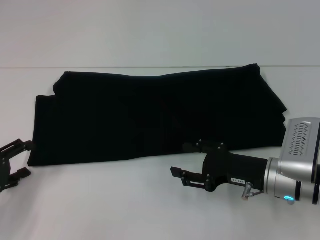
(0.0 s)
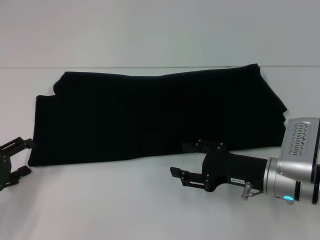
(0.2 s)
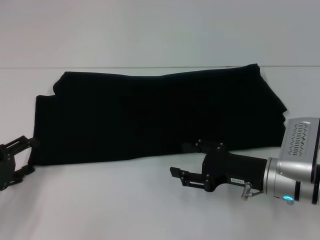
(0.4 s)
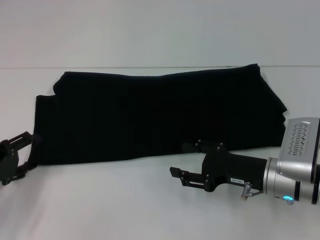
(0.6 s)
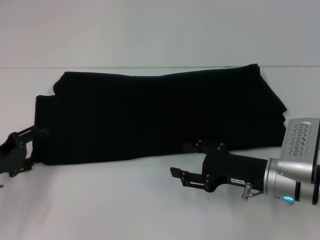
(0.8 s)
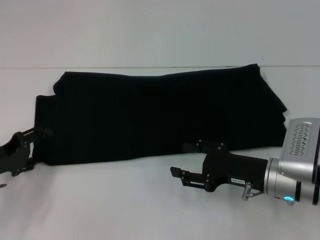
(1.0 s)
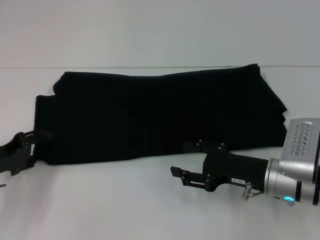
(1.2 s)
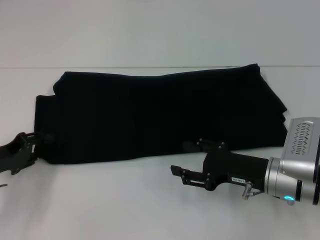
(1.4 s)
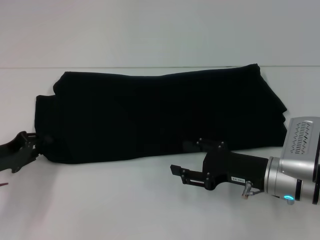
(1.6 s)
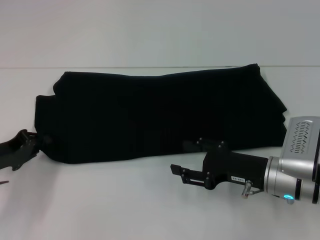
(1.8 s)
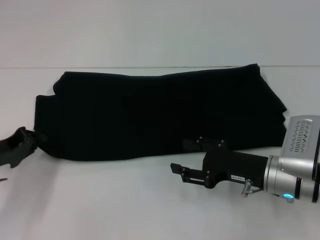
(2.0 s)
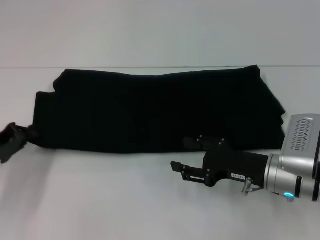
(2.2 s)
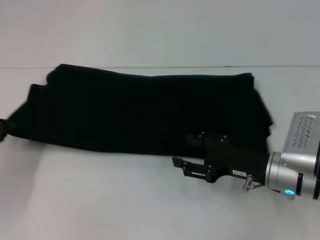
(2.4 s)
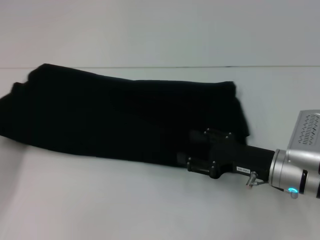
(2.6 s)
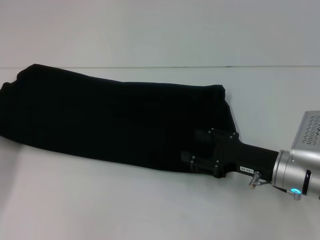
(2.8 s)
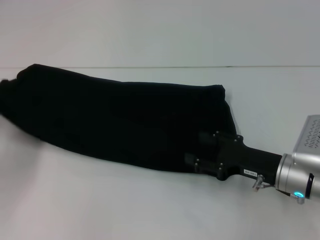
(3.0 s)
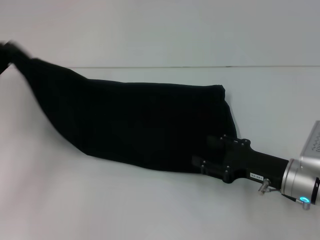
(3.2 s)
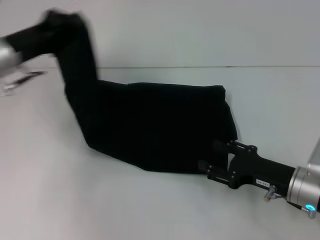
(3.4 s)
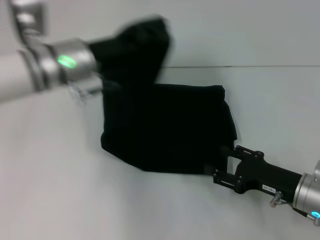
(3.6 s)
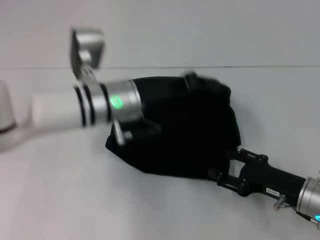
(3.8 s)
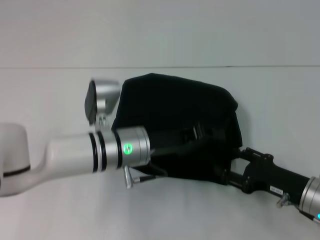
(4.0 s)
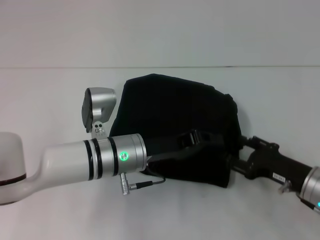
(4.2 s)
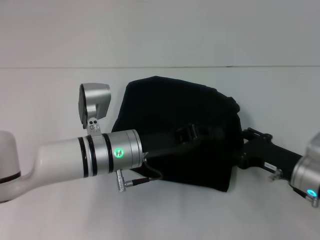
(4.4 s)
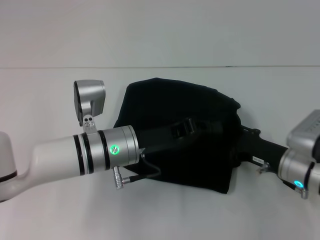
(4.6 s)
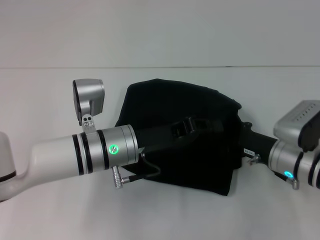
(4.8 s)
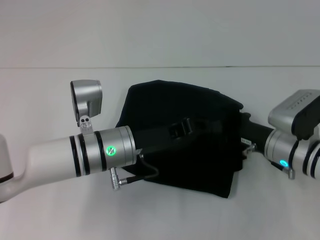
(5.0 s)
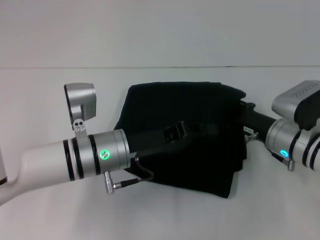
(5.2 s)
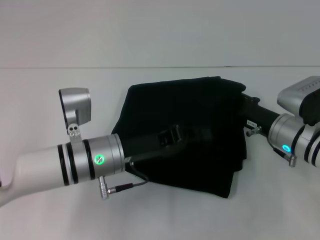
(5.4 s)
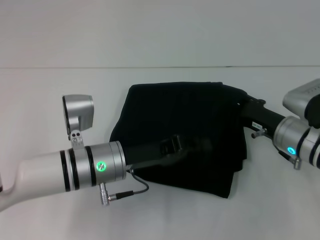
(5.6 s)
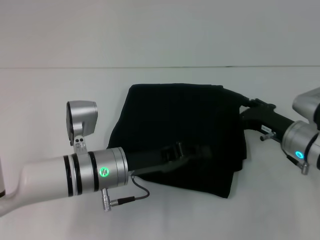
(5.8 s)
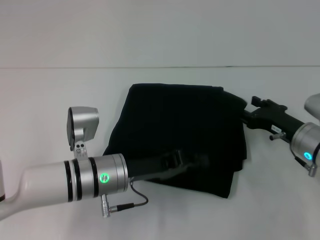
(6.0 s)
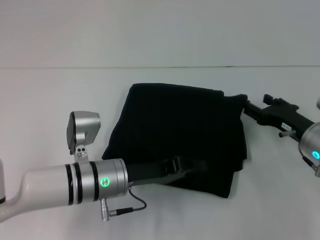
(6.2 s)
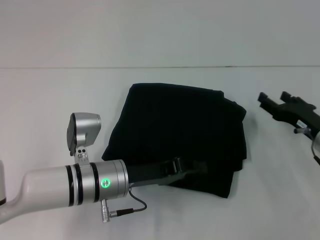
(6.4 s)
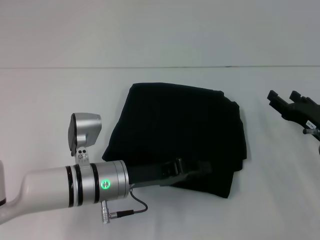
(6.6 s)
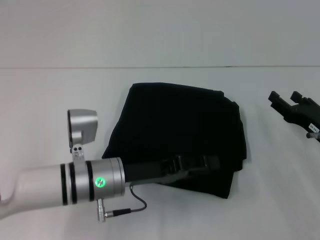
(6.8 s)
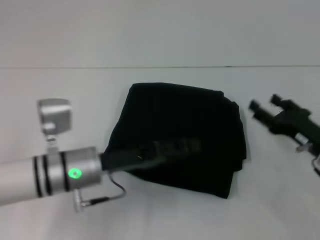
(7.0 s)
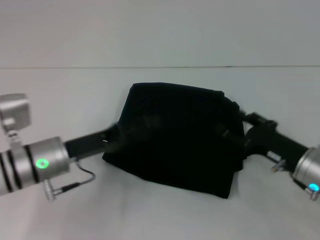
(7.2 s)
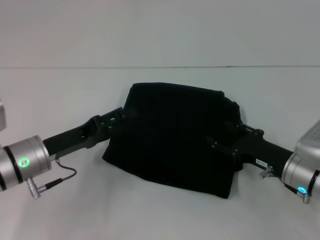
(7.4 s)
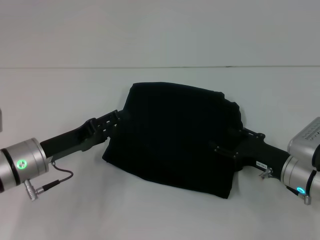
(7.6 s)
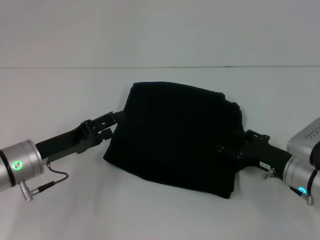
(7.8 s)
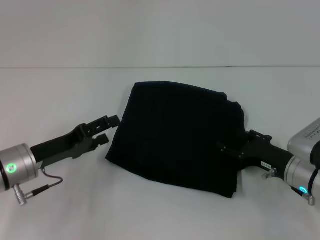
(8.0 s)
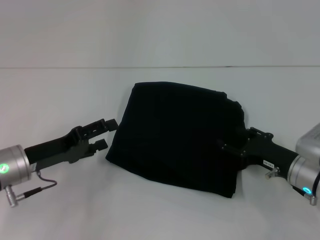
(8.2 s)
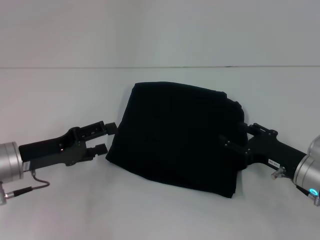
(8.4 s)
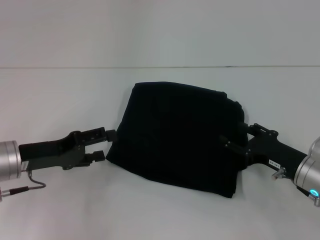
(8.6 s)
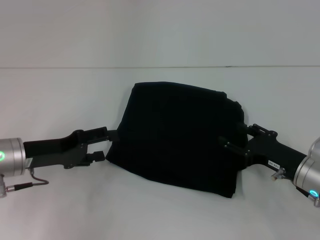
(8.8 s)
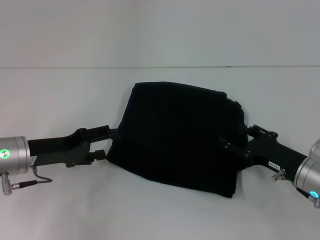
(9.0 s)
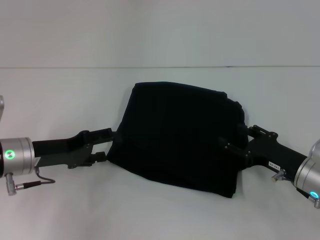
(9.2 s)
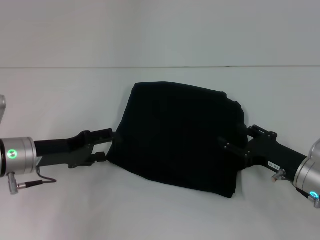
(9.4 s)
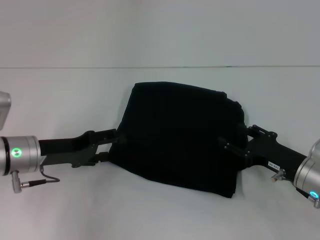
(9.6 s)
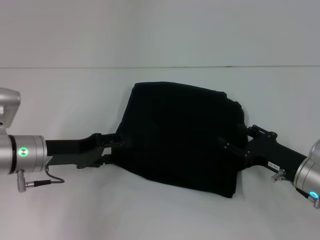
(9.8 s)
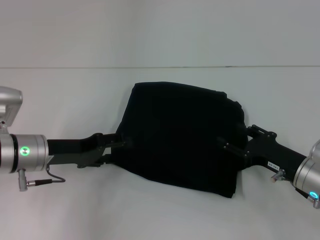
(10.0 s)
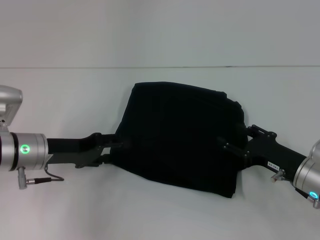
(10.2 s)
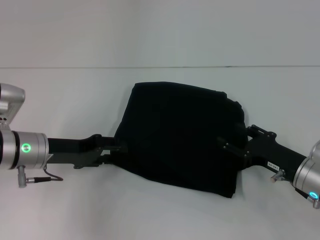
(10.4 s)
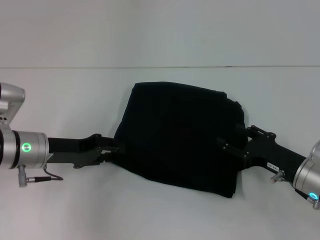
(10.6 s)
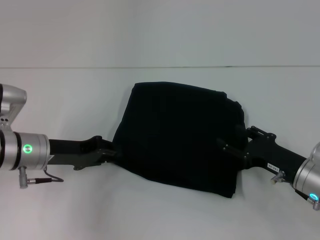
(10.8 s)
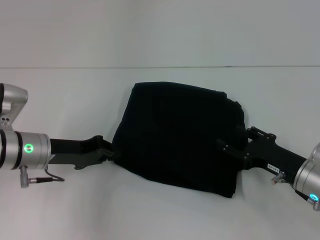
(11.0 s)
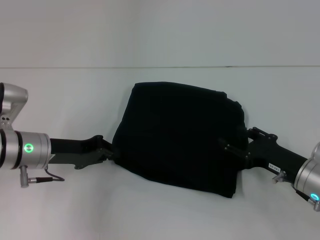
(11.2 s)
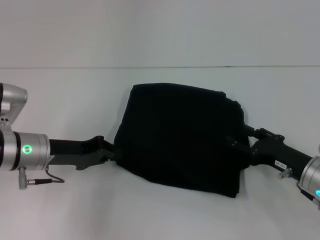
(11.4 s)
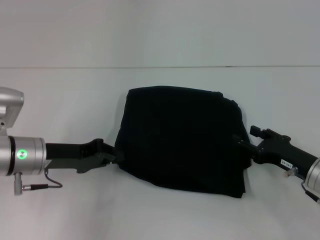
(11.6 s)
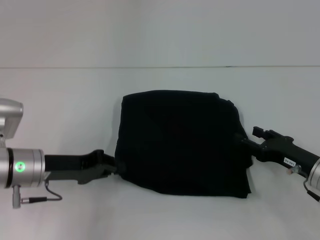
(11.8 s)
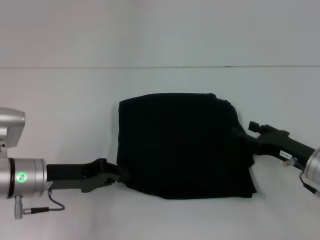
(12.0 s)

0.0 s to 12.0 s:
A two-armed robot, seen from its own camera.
Step, 0.0 to 6.8 s: Fold the clothes with your left hand.
0.0 to 1.6 s: The left gripper shifts by some 5 cm, and closes up.
1.6 to 3.0 s: The left gripper shifts some 10 cm to the left and upward, and closes up.
3.0 to 4.4 s: The left gripper heads to the right, covering approximately 30 cm.
6.0 to 7.6 s: The left gripper moves to the left, approximately 10 cm, and opens.
7.6 to 9.0 s: The grippers stay close to where they were, moving slightly.
9.0 to 10.4 s: The grippers stay close to where they were, moving slightly.
10.4 to 12.0 s: The left gripper closes its fingers.

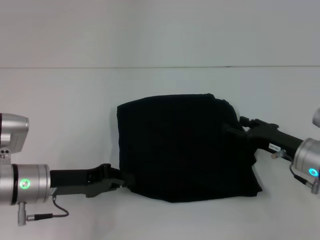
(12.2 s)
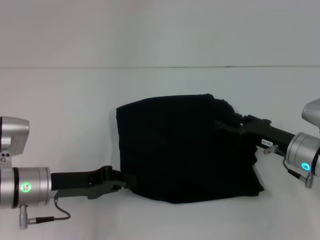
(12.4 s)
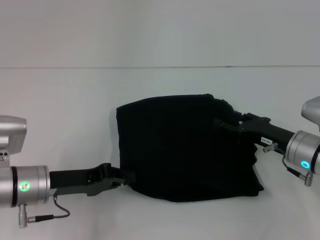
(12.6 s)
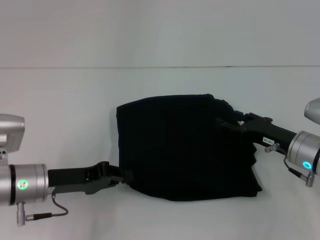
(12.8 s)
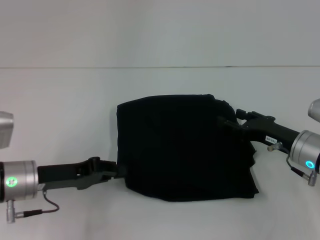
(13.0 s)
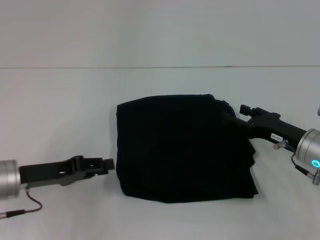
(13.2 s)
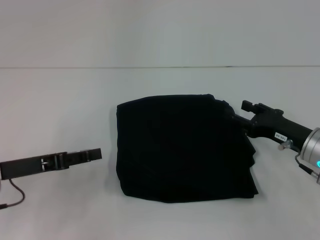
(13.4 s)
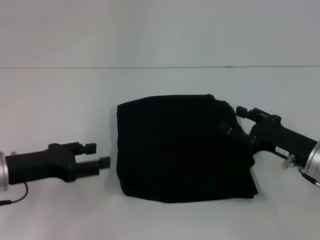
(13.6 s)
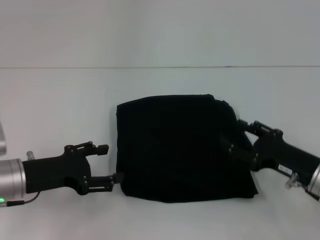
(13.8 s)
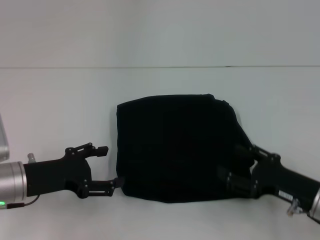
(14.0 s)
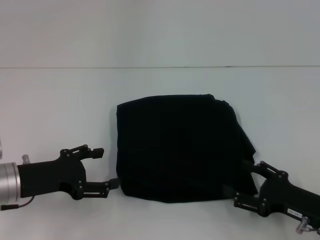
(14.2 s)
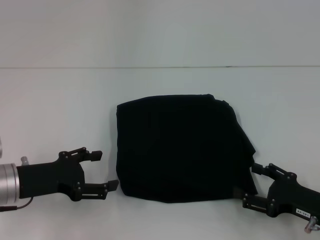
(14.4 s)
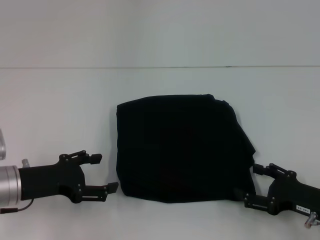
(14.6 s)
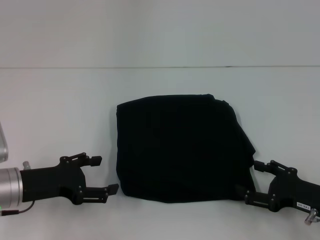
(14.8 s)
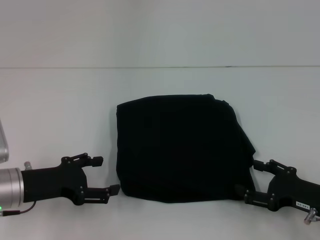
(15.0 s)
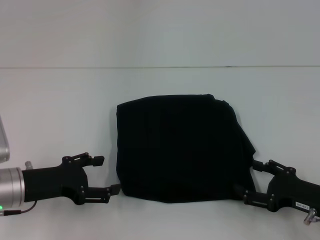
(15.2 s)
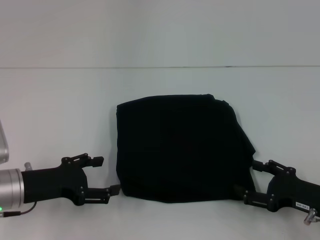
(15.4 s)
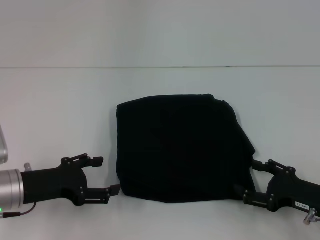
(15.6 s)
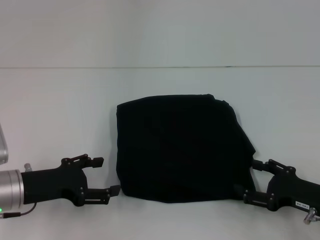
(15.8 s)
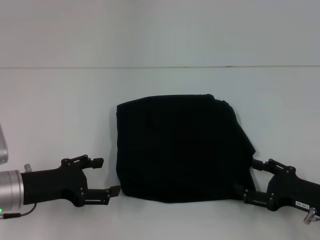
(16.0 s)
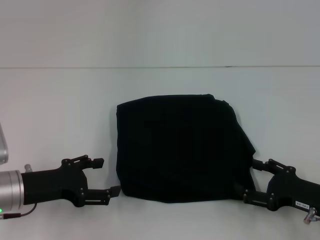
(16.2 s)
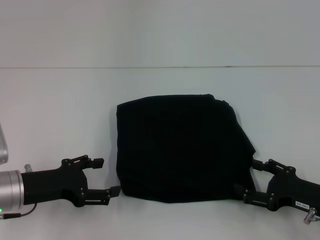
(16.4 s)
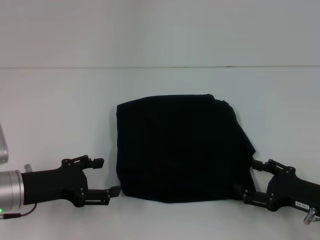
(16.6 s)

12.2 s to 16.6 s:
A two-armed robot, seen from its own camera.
12.2 to 13.6 s: The left gripper changes place by some 5 cm, and opens.
13.6 to 15.2 s: The right gripper heads backward, covering about 5 cm. Meanwhile the left gripper opens its fingers.
15.2 to 16.6 s: The two grippers keep their place.

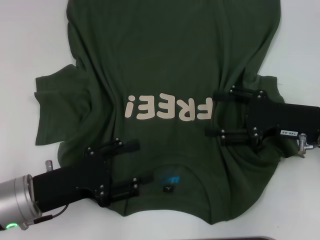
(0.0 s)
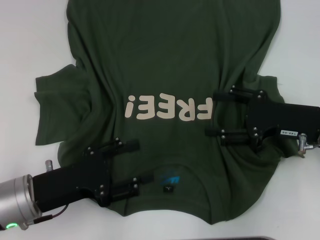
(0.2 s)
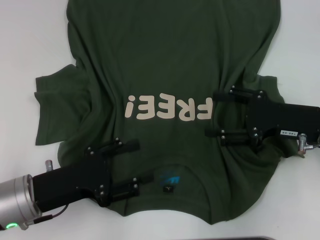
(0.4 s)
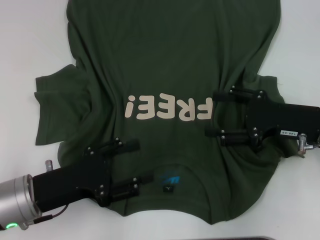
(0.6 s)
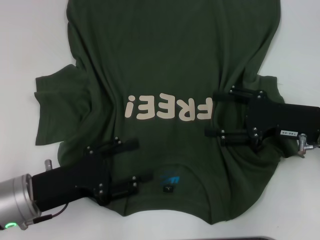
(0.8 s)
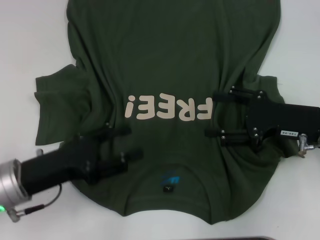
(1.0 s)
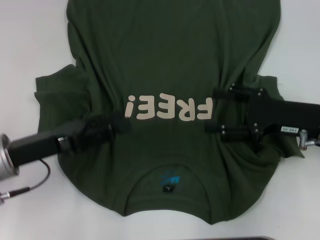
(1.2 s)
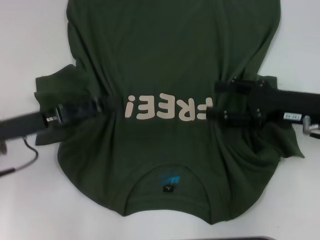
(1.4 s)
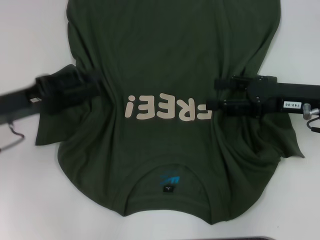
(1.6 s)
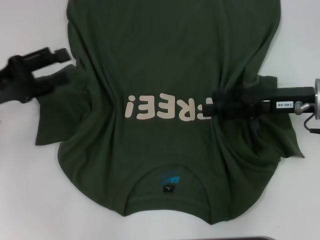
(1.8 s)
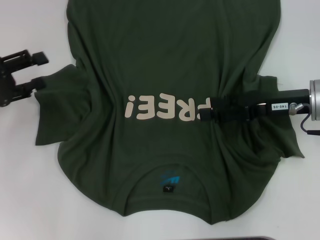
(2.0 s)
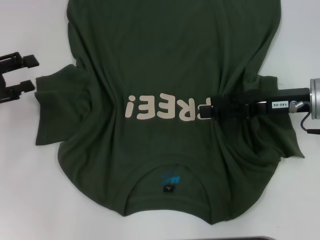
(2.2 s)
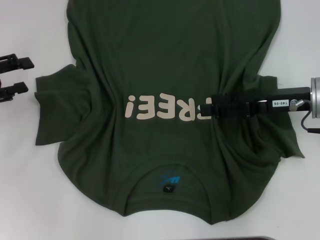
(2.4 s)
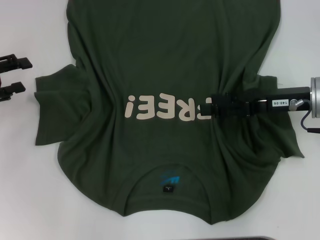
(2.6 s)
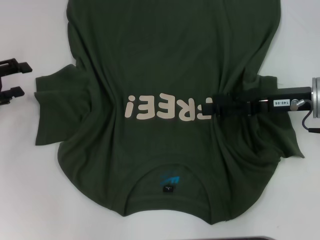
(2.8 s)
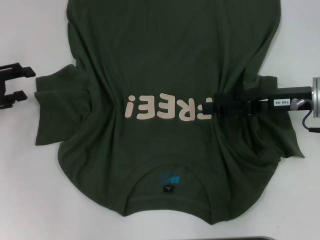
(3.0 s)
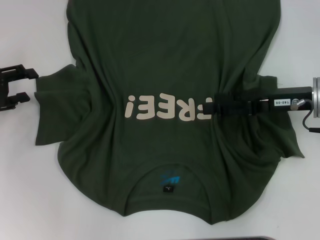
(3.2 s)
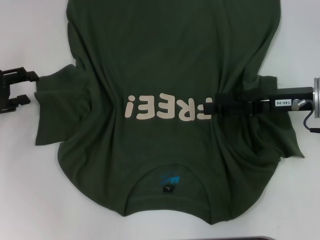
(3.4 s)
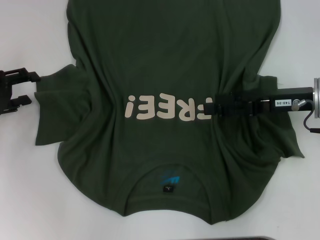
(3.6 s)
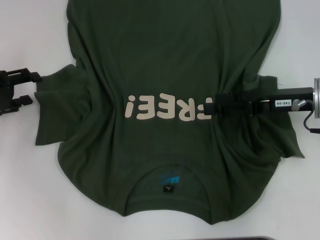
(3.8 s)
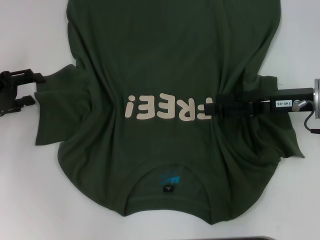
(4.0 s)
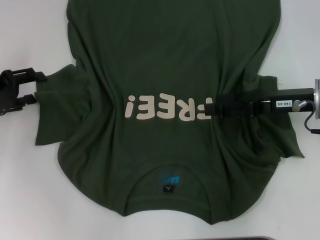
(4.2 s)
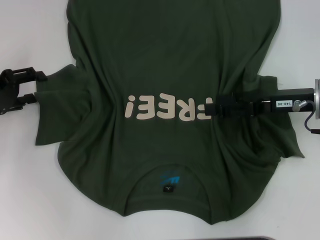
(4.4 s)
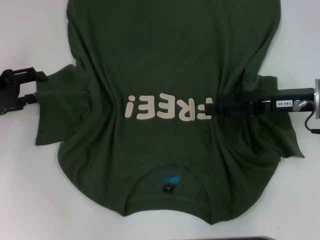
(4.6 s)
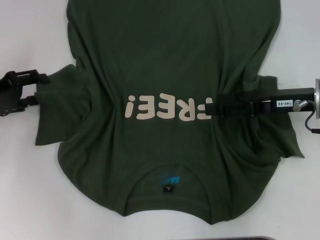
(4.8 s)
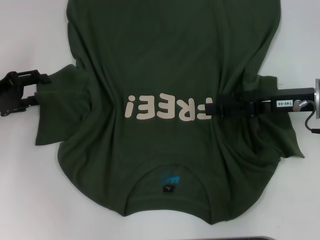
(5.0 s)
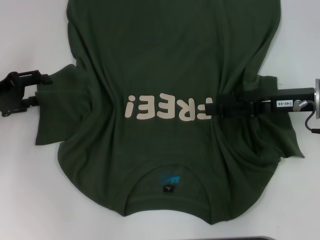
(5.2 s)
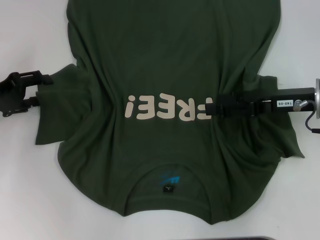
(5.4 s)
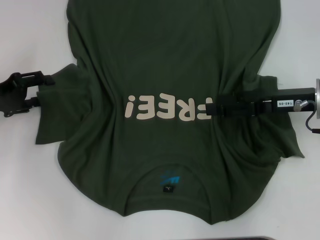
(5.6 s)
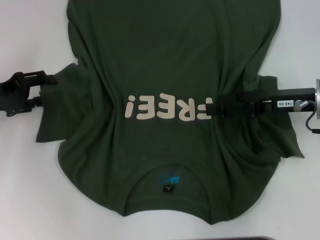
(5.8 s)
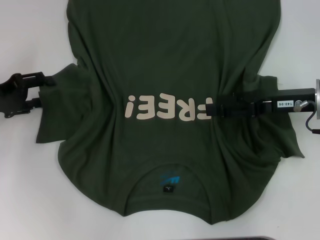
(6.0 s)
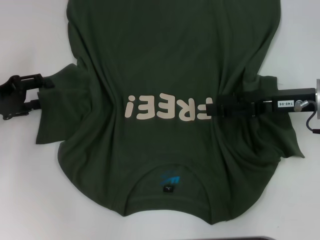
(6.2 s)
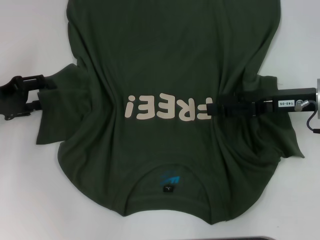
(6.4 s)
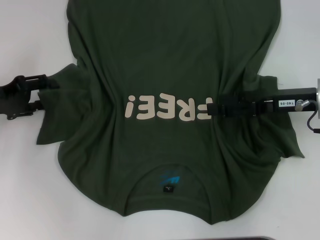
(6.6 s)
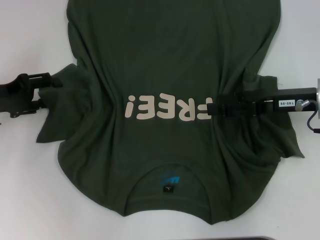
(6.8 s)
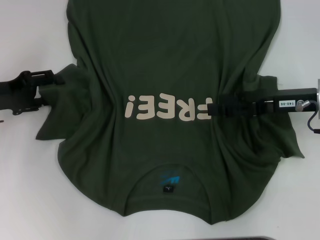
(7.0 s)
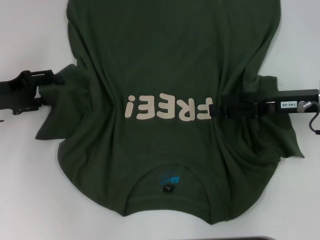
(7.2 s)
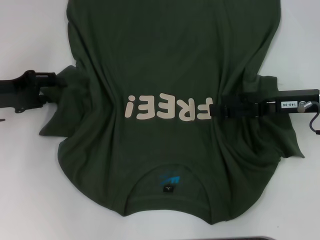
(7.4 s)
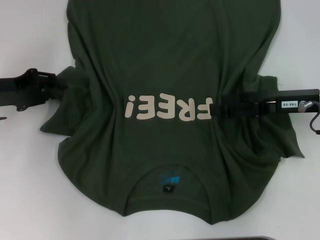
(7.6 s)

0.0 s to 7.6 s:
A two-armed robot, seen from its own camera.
0.0 to 1.6 s: The left gripper moves forward, upward and to the left, approximately 10 cm.
1.6 to 3.0 s: The left gripper goes about 10 cm to the left.
3.0 to 4.6 s: The grippers move only a little.
4.6 to 6.0 s: The two grippers keep their place.
6.0 to 7.6 s: The grippers stay close to where they were, moving slightly.
